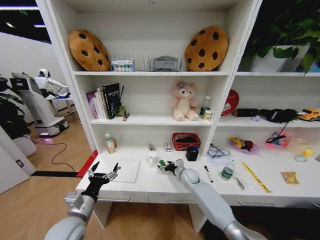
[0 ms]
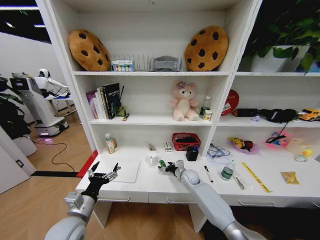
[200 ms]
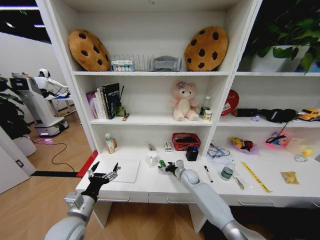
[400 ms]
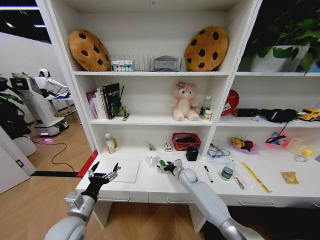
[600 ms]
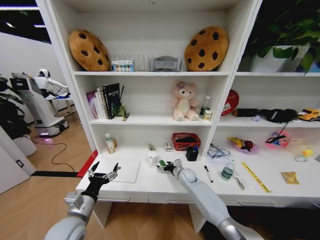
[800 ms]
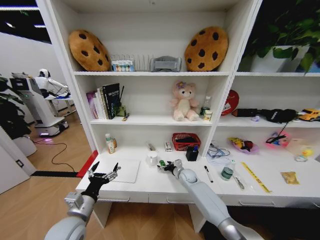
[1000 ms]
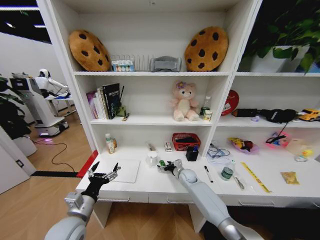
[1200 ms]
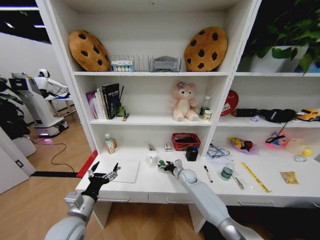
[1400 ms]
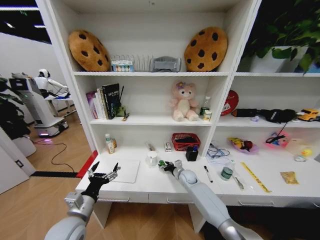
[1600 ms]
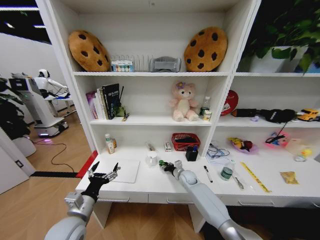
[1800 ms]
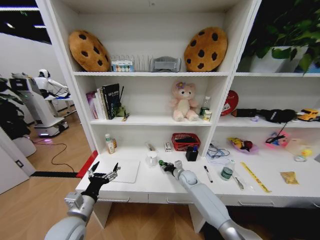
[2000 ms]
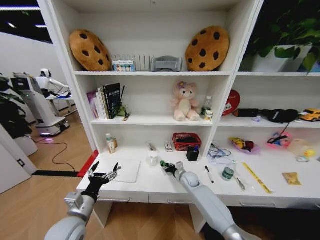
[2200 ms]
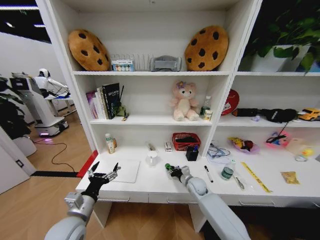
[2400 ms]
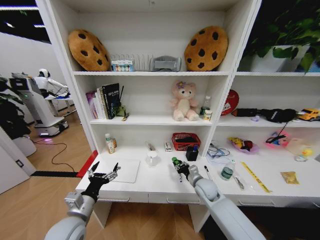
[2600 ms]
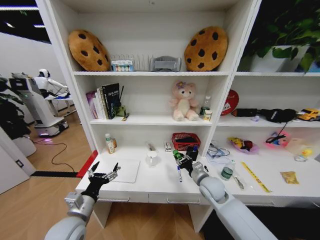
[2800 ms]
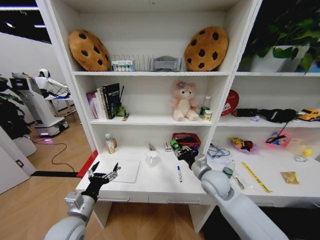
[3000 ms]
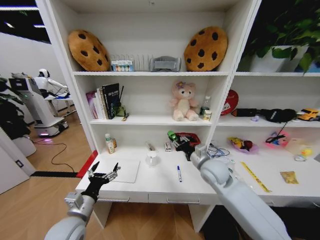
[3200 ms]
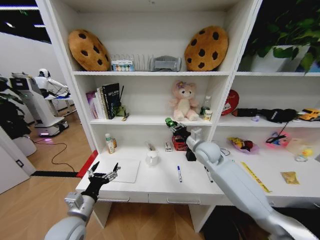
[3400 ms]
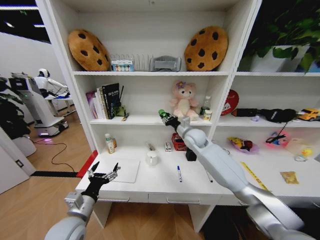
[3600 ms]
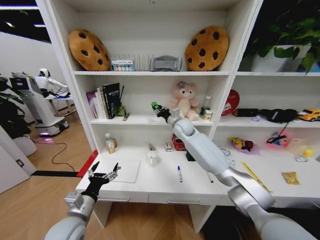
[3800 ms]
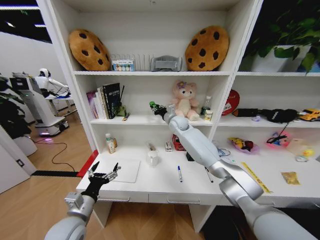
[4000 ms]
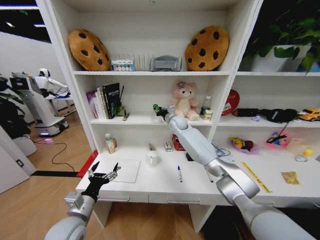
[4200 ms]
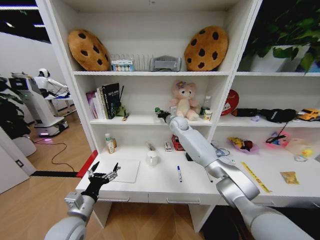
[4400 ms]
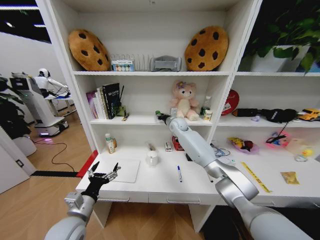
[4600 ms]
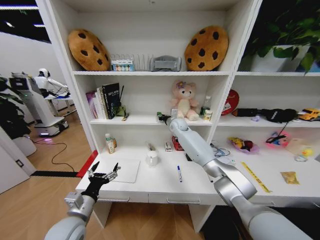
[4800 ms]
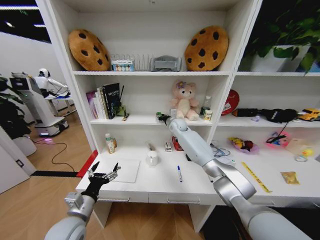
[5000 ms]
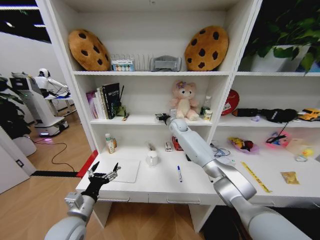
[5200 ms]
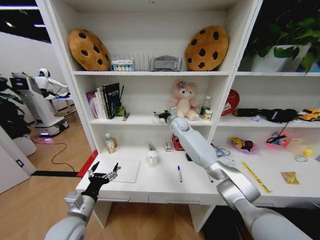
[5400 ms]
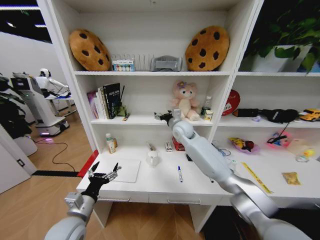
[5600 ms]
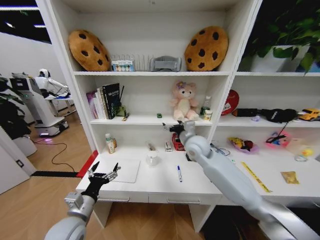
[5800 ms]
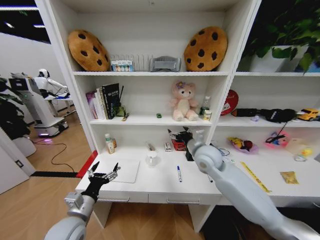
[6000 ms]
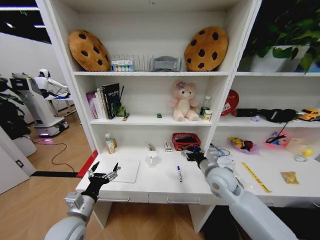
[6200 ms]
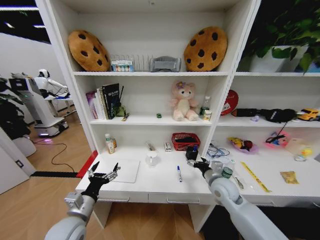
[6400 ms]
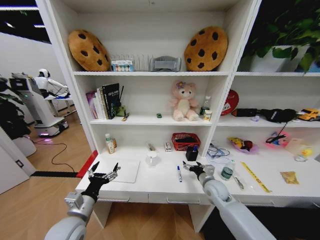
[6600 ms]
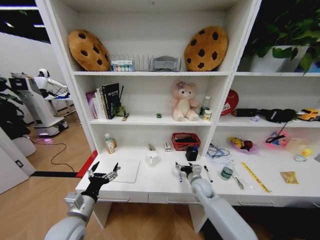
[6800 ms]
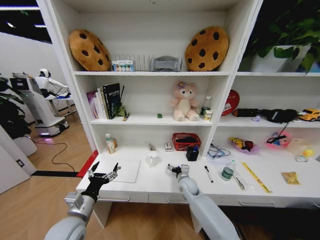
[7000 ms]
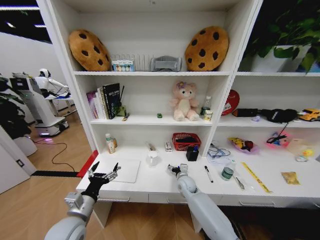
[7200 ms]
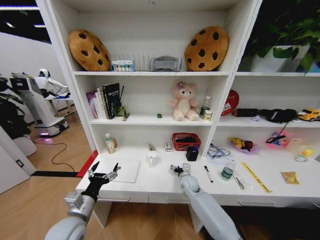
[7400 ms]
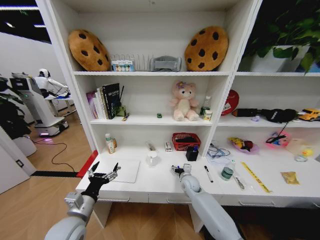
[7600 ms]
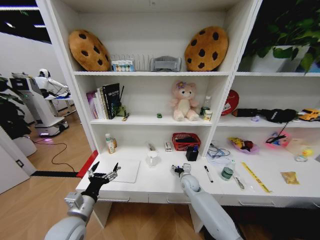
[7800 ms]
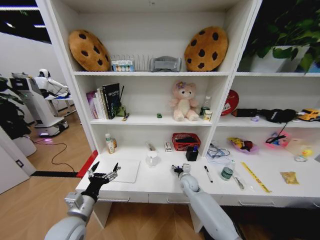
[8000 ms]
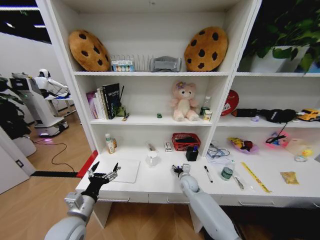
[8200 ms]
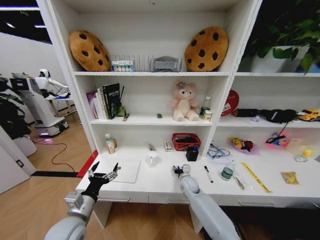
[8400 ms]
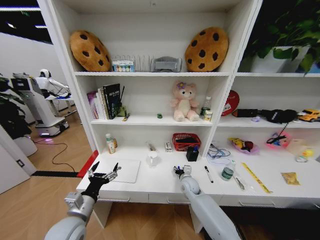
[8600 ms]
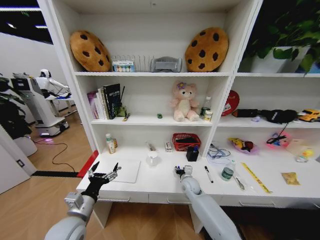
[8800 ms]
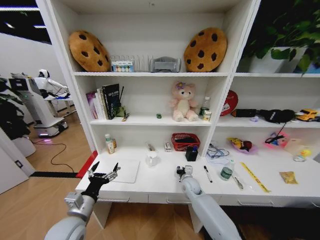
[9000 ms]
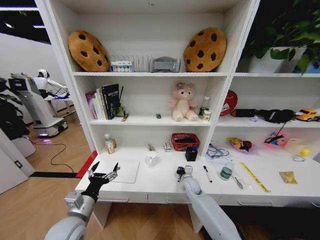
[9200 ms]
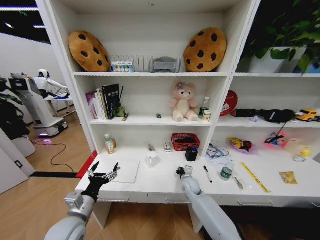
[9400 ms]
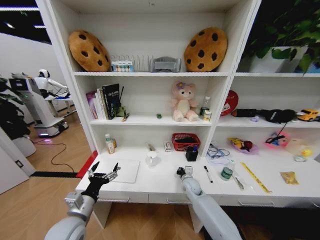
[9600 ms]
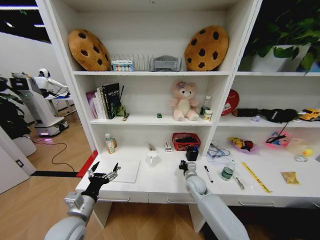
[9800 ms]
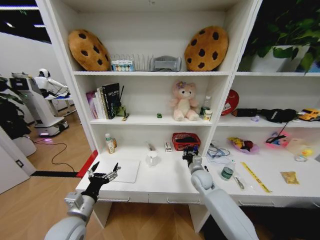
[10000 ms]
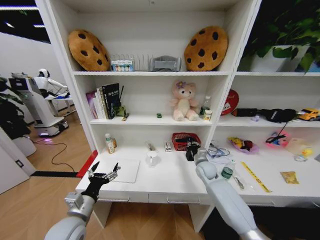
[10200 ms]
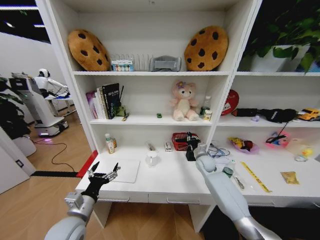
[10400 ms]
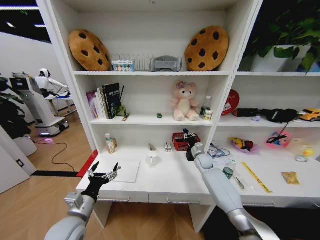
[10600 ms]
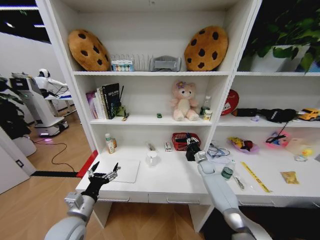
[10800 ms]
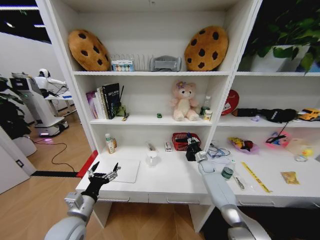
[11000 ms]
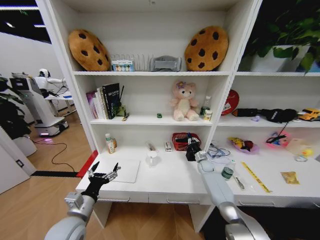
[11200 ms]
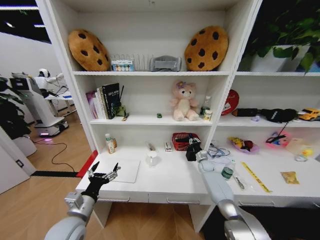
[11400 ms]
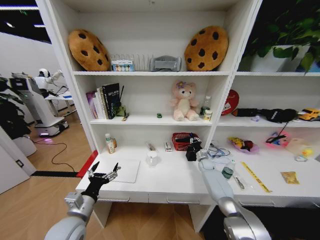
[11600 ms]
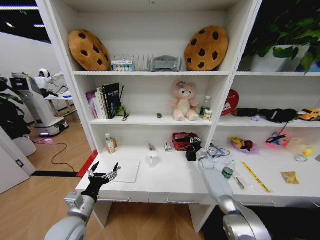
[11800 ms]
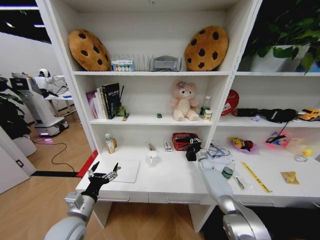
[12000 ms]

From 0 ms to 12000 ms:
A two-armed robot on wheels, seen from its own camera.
Task of the whole recording: Organize the objects on the table.
From 0 ms to 1600 ms: The grippers make only small movements.
From 1600 ms to 3000 ms: The right gripper moves upward and backward, roughly 25 cm.
From 3000 ms to 4400 ms: The right gripper moves forward, roughly 30 cm.
From 4400 ms to 6000 ms: The right gripper moves backward, some 25 cm, and opens its fingers.
From 6000 ms to 7600 ms: The right gripper travels downward by approximately 25 cm.
From 7600 ms to 9000 ms: The right gripper closes up.
From 9000 ms to 10400 ms: The right gripper goes about 15 cm upward, to the right and forward.
From 10400 ms to 12000 ms: The right gripper goes some 15 cm downward, to the right and forward.

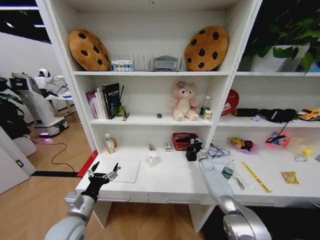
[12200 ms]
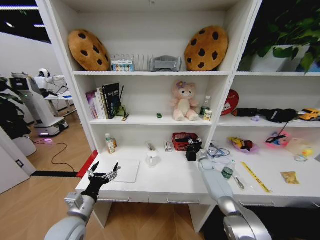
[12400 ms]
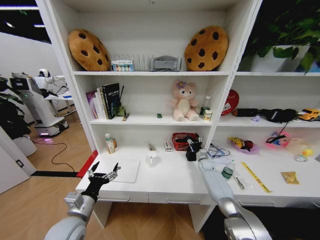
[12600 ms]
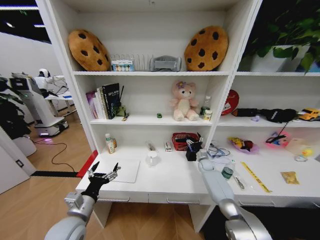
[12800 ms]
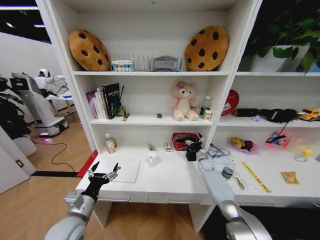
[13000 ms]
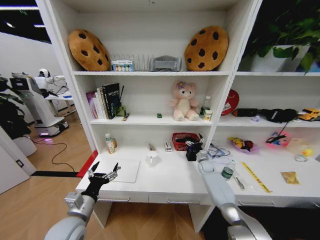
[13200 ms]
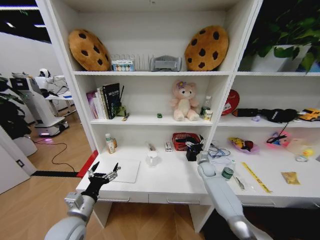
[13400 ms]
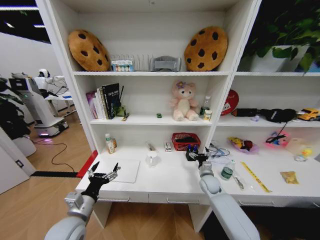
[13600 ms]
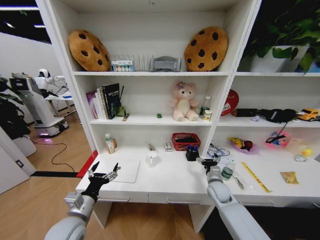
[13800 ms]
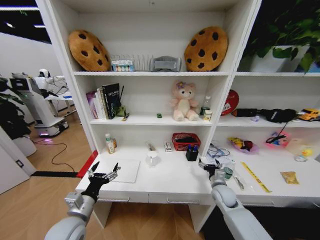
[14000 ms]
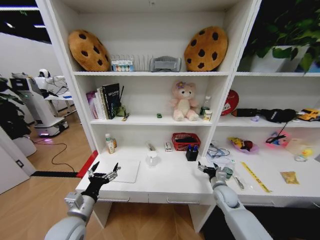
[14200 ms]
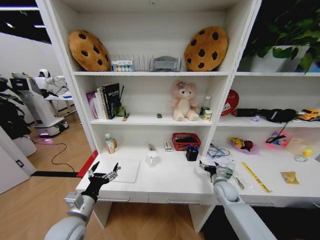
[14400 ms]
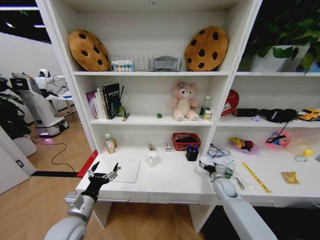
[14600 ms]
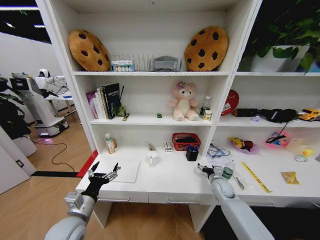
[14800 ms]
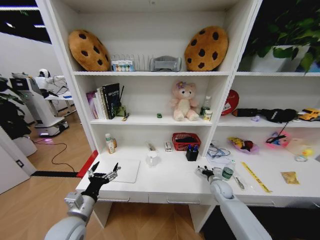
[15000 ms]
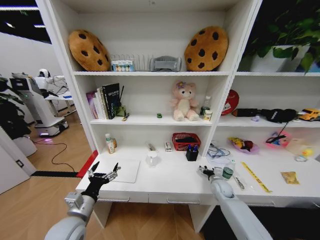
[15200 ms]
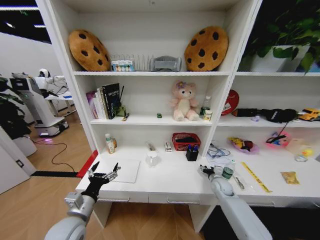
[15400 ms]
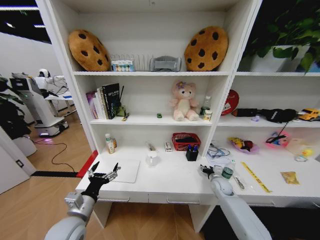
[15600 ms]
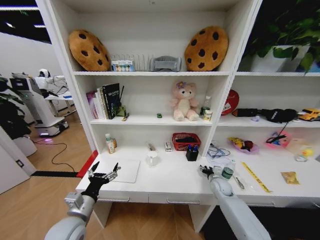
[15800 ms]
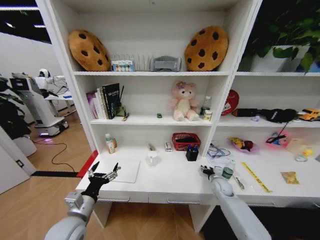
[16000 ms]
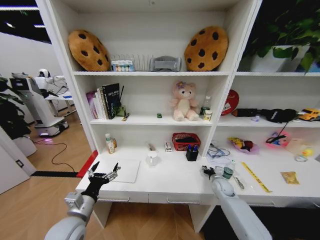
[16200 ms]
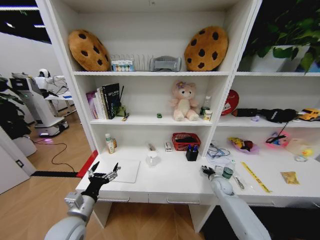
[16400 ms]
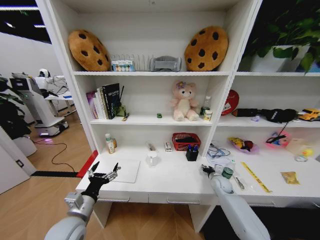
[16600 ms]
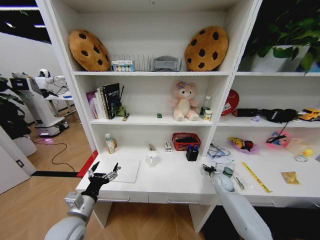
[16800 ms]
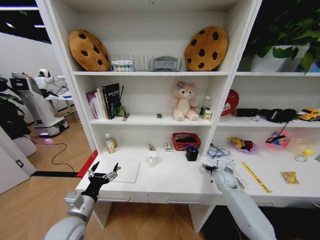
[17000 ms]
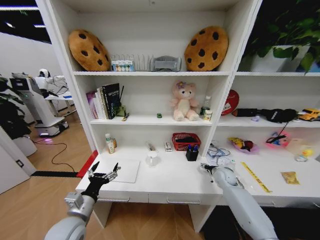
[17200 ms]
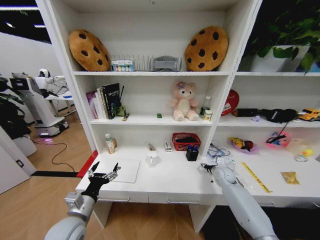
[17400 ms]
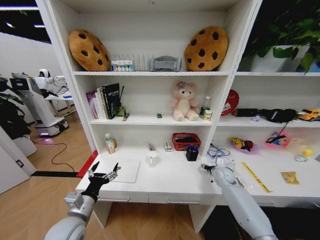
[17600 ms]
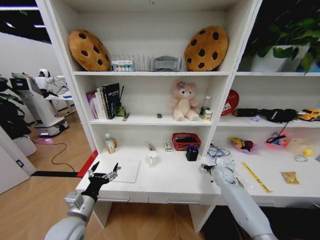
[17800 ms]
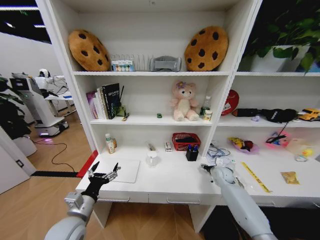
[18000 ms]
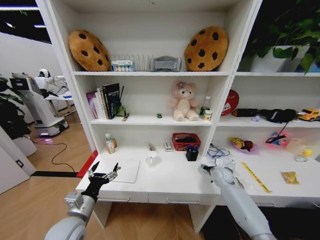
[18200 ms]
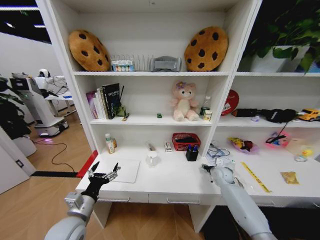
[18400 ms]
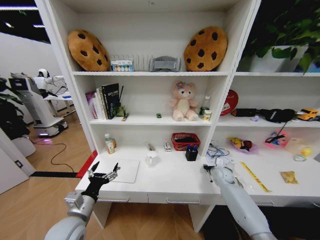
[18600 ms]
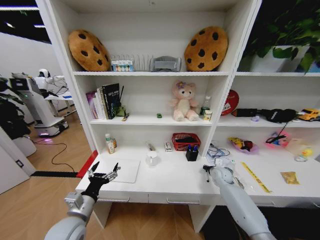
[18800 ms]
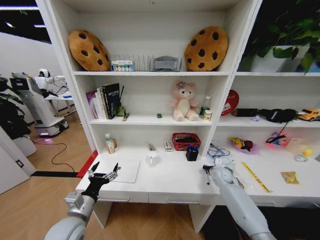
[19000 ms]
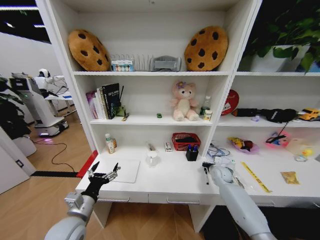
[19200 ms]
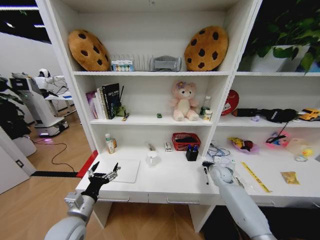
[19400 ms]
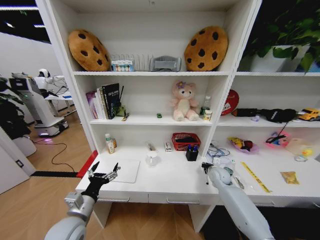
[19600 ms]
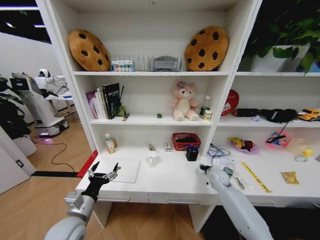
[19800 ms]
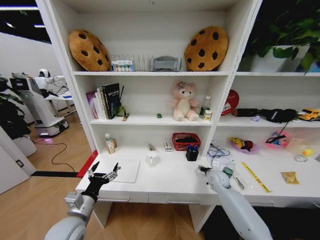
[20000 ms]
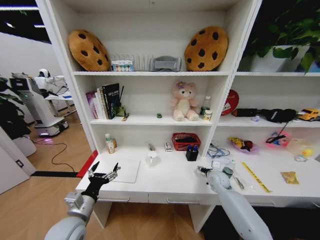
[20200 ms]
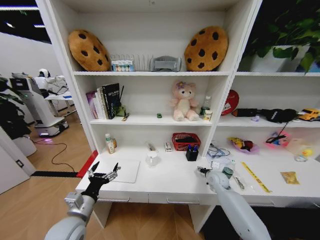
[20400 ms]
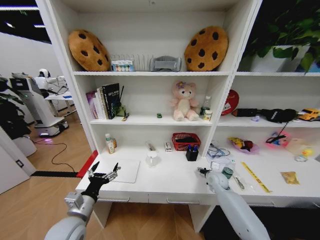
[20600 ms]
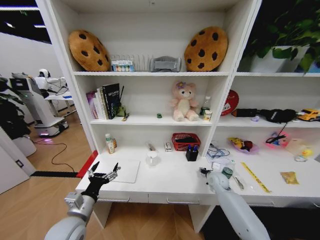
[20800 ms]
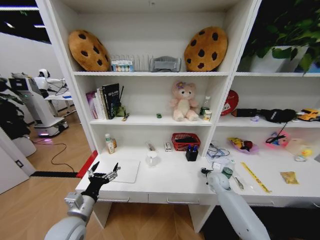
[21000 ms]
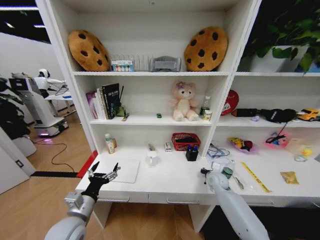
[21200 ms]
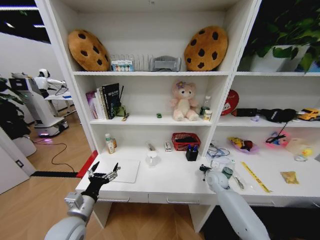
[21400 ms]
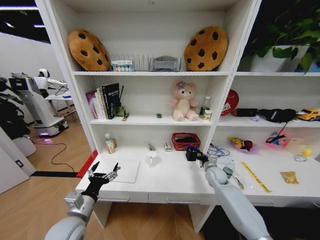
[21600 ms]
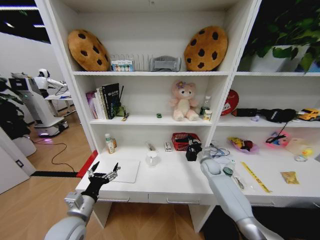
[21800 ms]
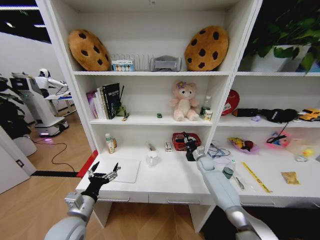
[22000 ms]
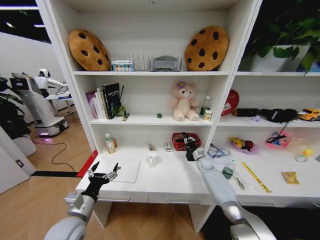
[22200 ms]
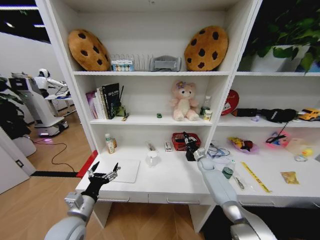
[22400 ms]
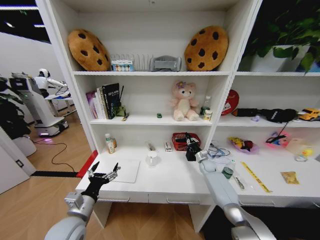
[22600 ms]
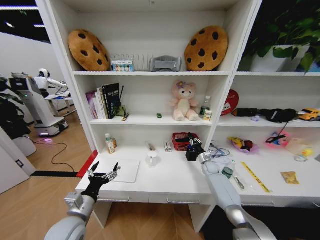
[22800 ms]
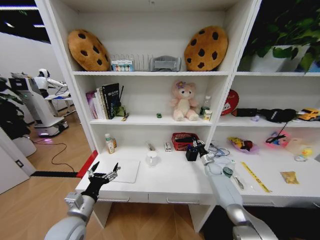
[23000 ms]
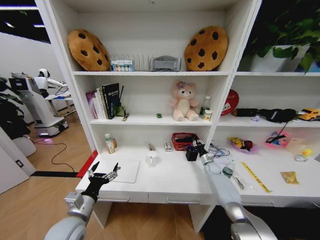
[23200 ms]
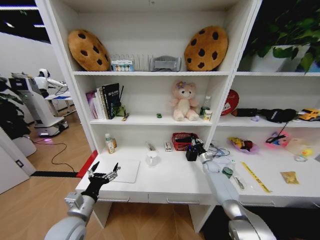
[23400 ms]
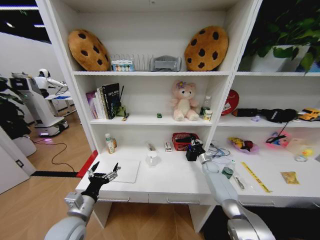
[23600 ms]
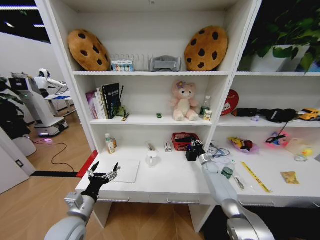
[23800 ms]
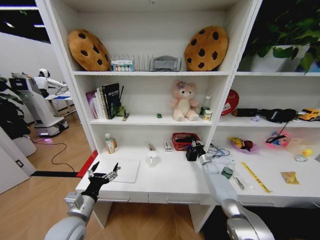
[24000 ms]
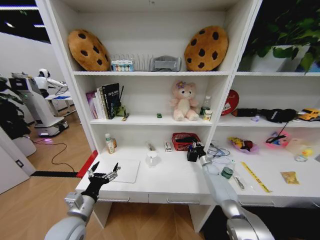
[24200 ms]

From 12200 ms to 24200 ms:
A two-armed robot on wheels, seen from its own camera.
Task of the whole recording: Organize the objects on the table.
From 12200 ms to 13800 ms: The right gripper shifts roughly 20 cm backward, and opens its fingers.
From 13800 ms to 15200 ms: The right gripper moves about 5 cm.
From 15200 ms to 16600 ms: The right gripper closes.
From 16600 ms to 18200 ms: The grippers move only a little.
From 18200 ms to 19800 ms: The right gripper changes place by roughly 5 cm, and closes, then opens again.
From 19800 ms to 21200 ms: The right gripper opens, then closes once more.
From 21200 ms to 22600 ms: The right gripper is displaced forward by approximately 10 cm.
From 22600 ms to 24200 ms: The right gripper ends up about 5 cm from where it was.
